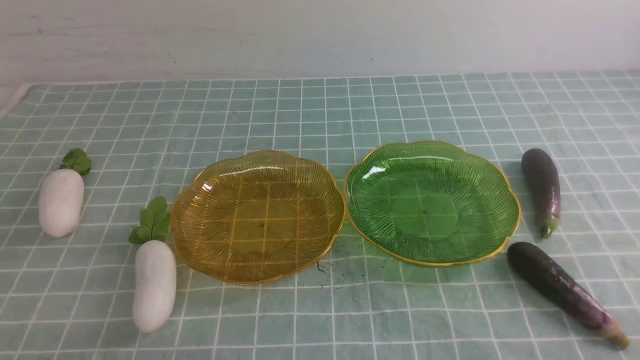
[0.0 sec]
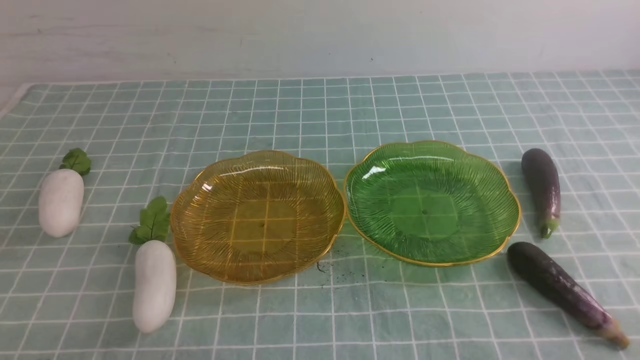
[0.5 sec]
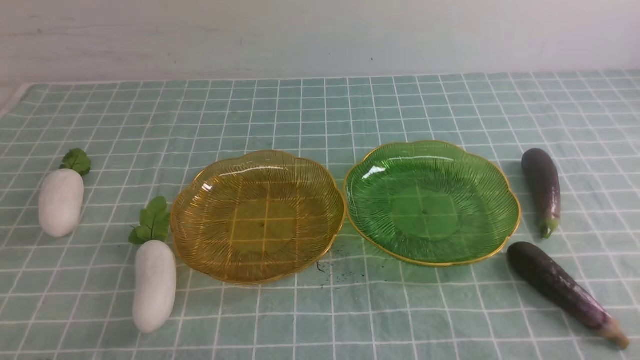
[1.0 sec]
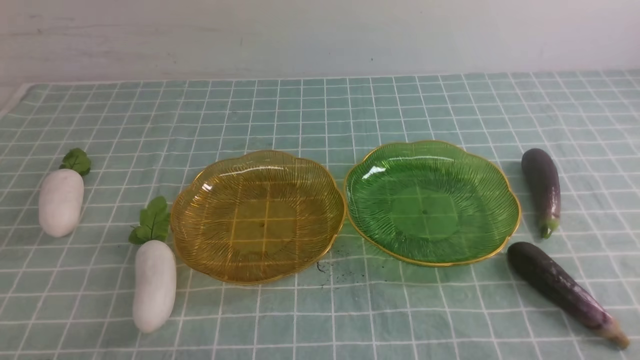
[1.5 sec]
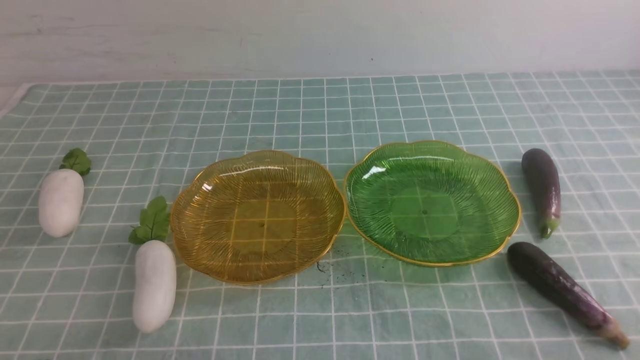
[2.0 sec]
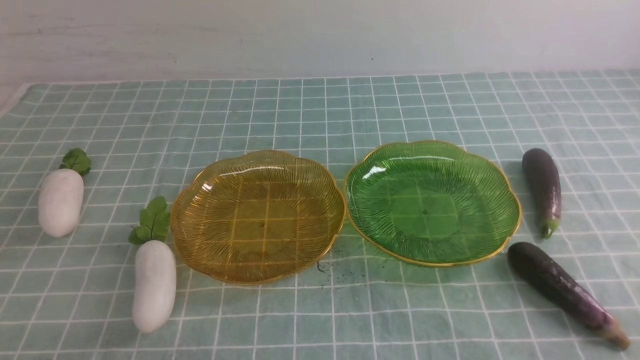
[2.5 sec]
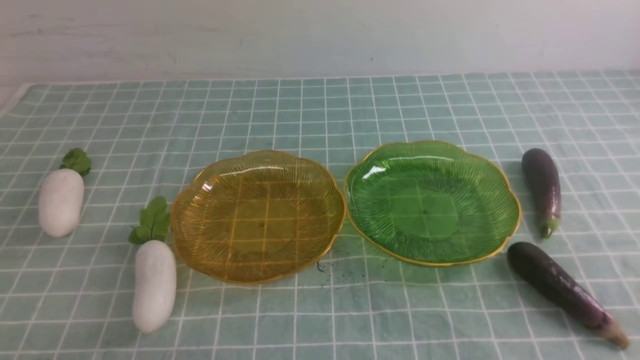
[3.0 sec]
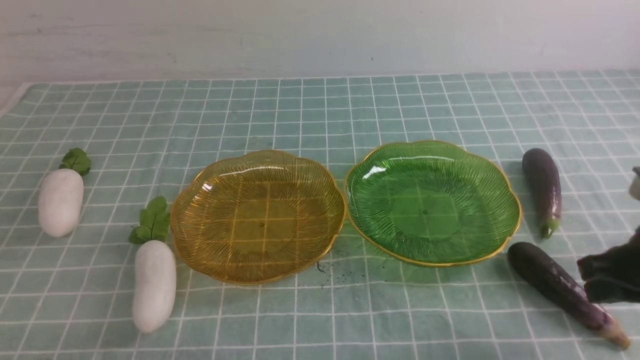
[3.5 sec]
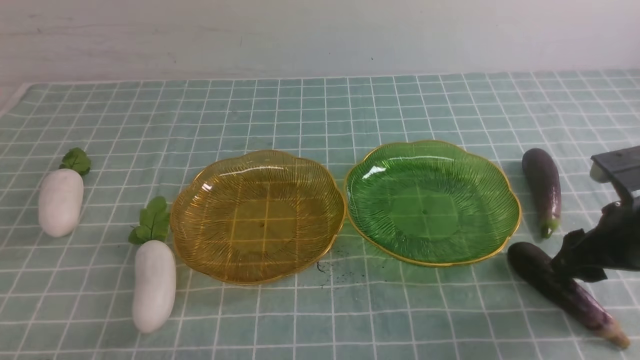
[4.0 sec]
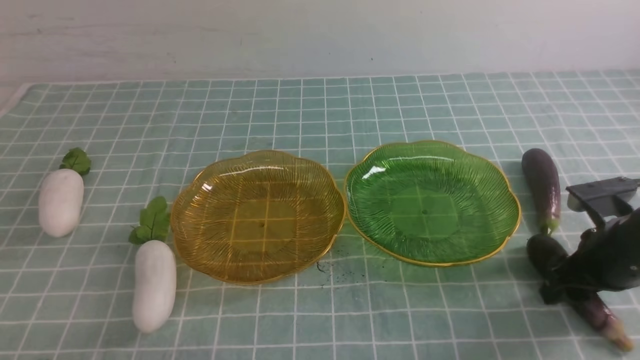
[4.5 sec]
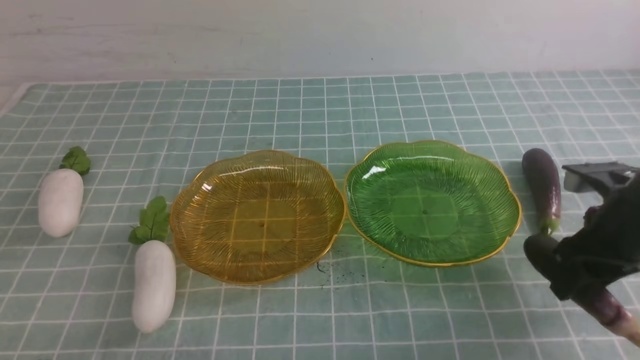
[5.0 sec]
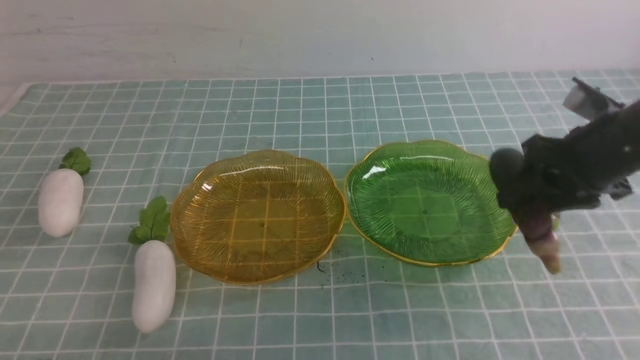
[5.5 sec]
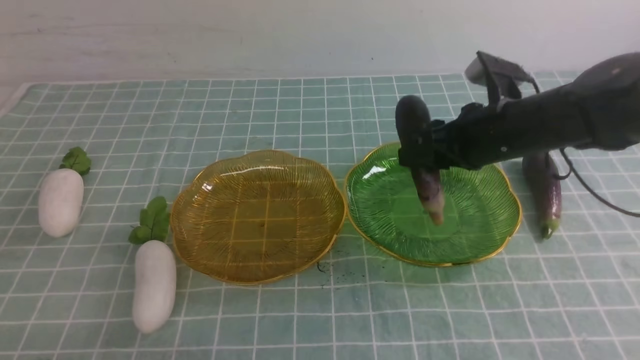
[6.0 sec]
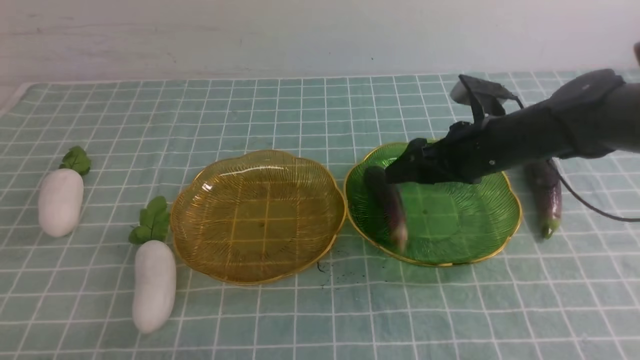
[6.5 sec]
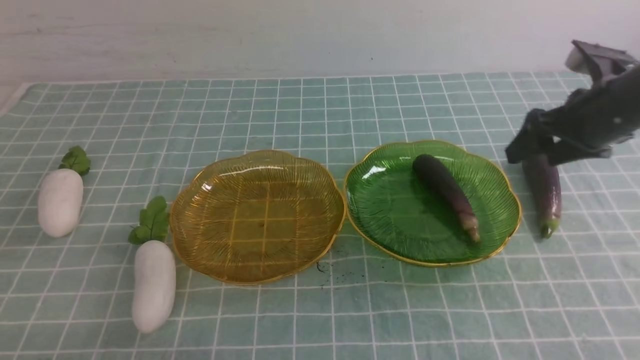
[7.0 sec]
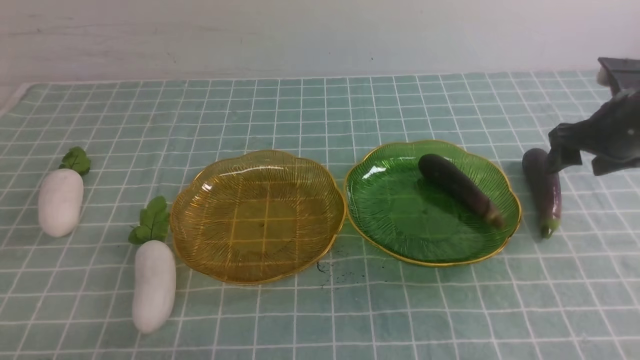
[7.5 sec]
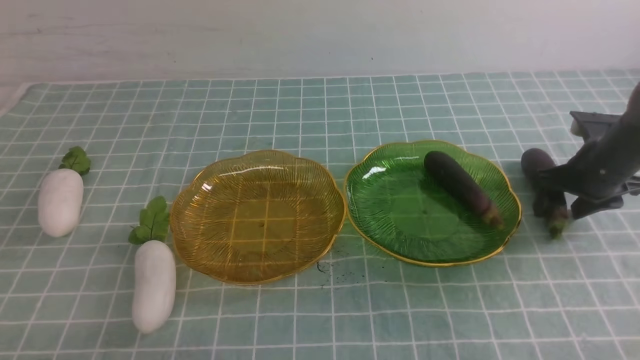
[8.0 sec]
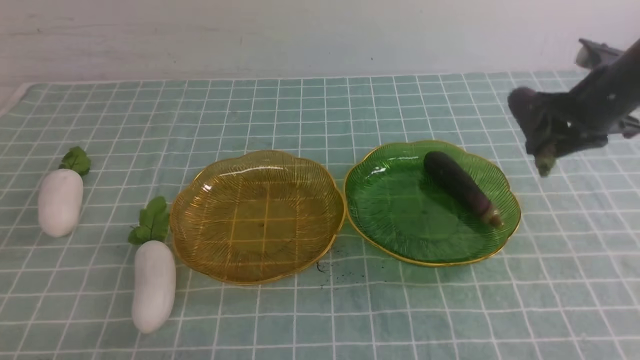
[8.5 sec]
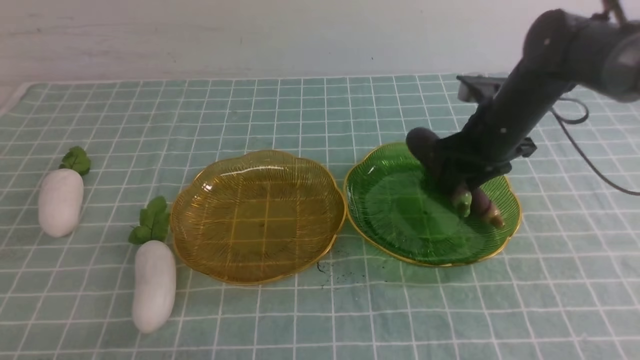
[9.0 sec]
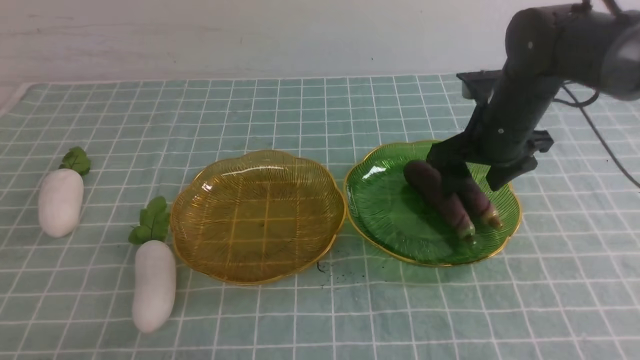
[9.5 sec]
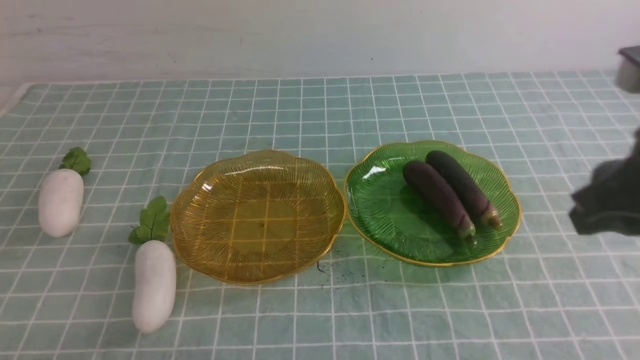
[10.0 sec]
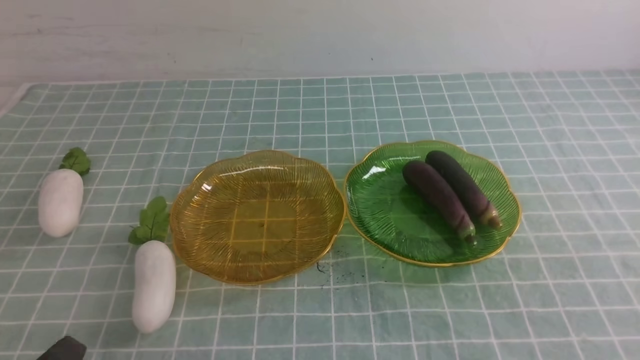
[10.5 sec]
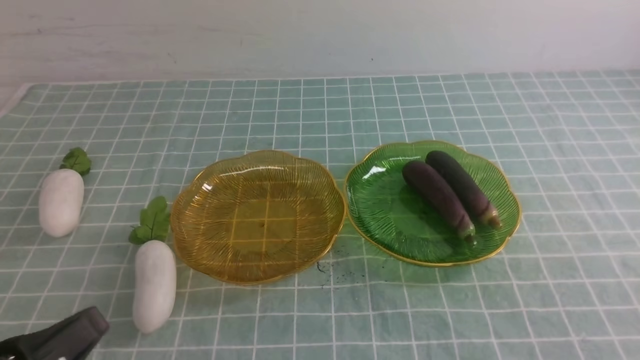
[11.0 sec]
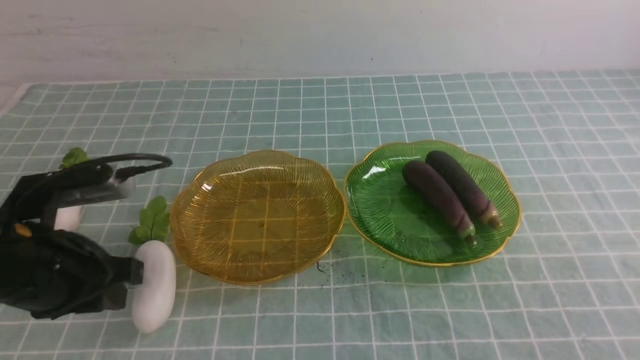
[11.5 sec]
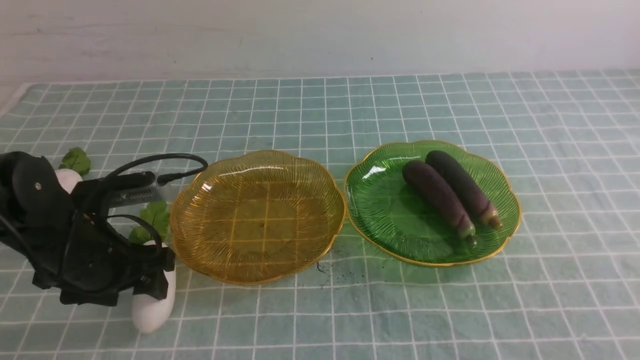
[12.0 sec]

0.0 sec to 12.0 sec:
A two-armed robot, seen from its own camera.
Step, 0.0 sec to 9.0 sec: use the right arm to grab an eggplant and put it into the right plate.
2.0 sec to 4.0 sec: The right gripper travels forward by approximately 25 cm, and opens.
4.0 sec to 6.0 sec: The right gripper heads to the left and forward, covering roughly 15 cm.
6.0 sec to 8.0 sec: The right gripper shifts some 15 cm to the right and downward.
8.0 sec to 10.0 sec: The right gripper heads backward, upward and to the left, covering some 30 cm, and closes up.
10.0 sec to 12.0 sec: The left gripper is displaced forward by about 20 cm, and opens up. The right gripper shifts about 15 cm backward and downward, and closes its fingers.

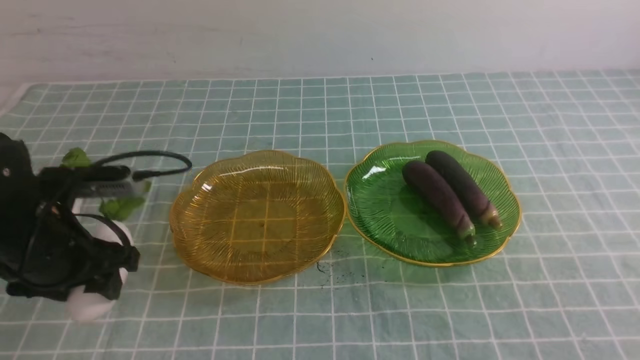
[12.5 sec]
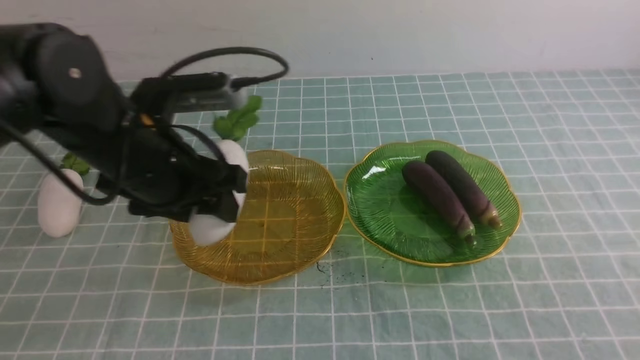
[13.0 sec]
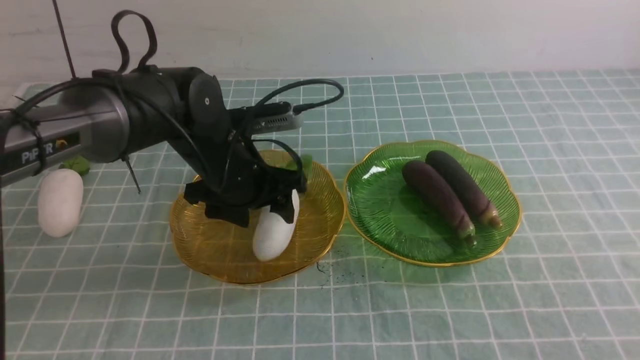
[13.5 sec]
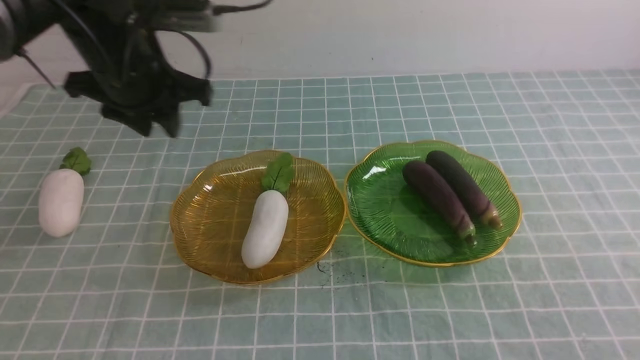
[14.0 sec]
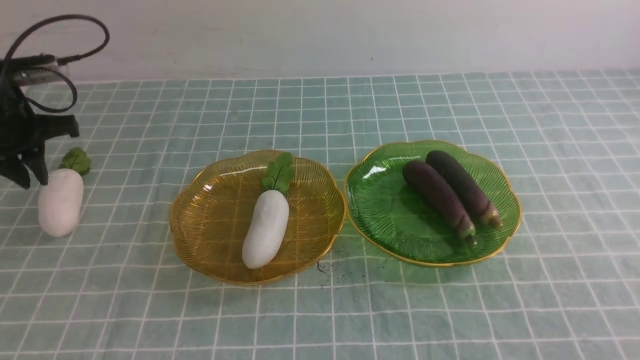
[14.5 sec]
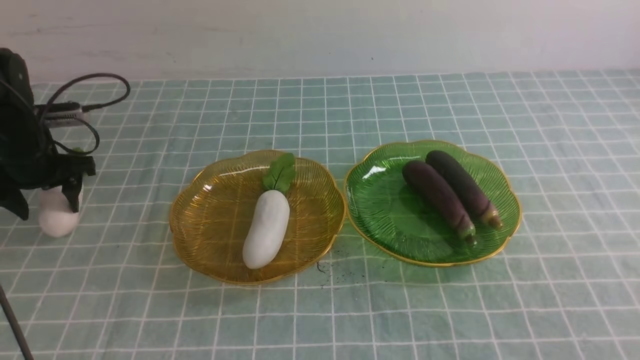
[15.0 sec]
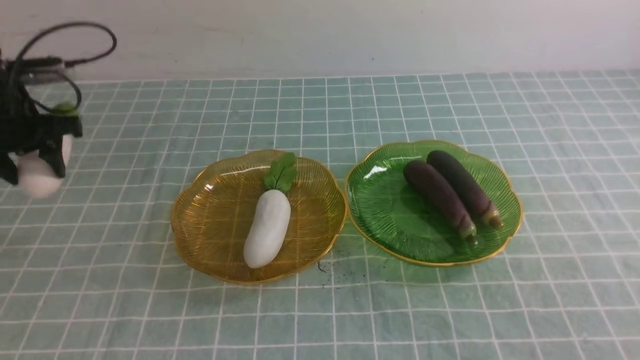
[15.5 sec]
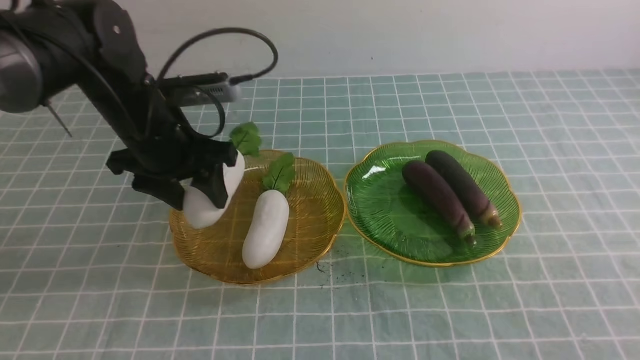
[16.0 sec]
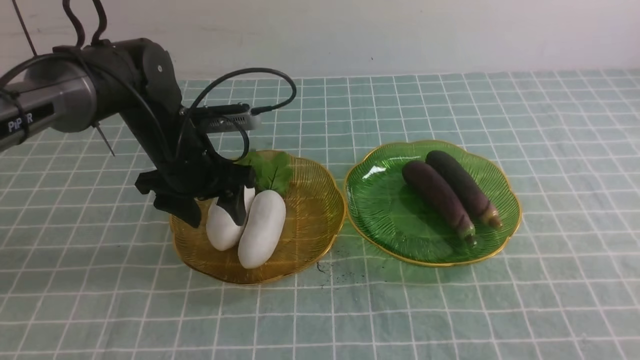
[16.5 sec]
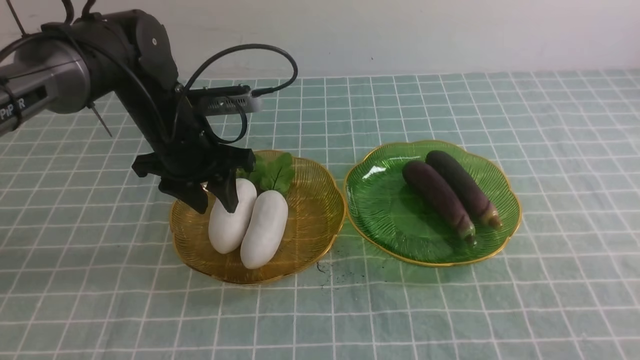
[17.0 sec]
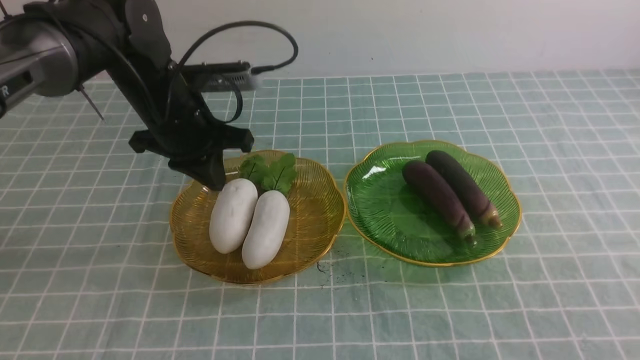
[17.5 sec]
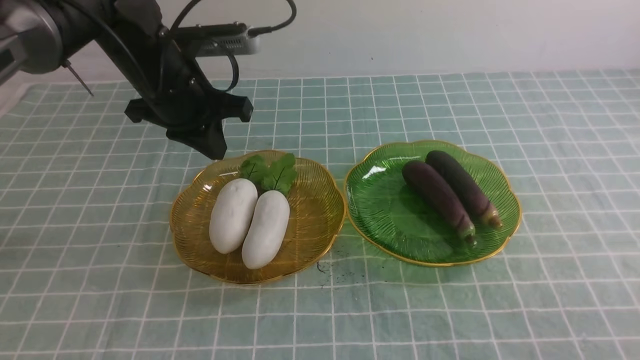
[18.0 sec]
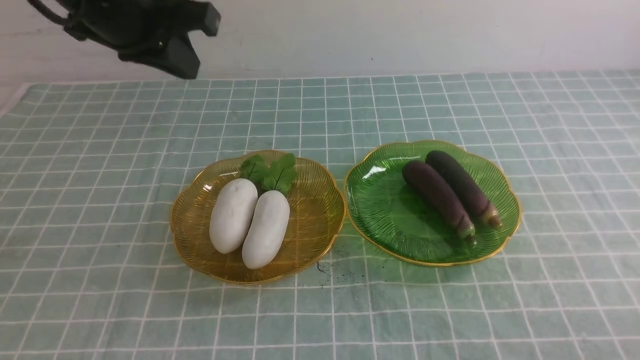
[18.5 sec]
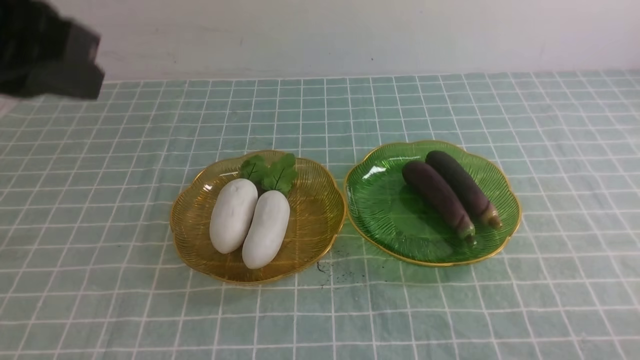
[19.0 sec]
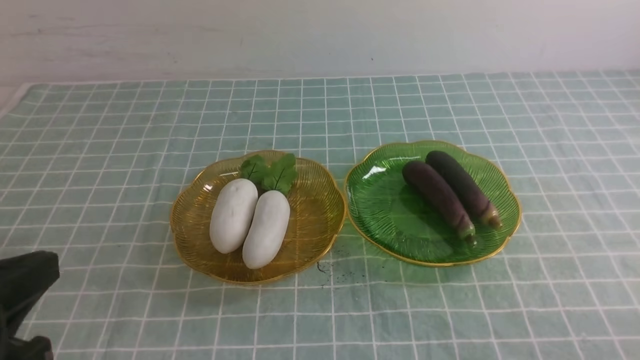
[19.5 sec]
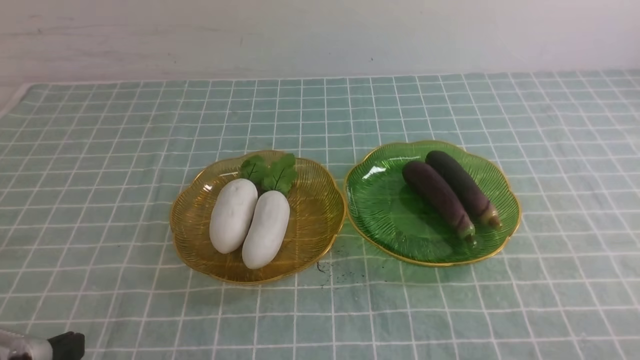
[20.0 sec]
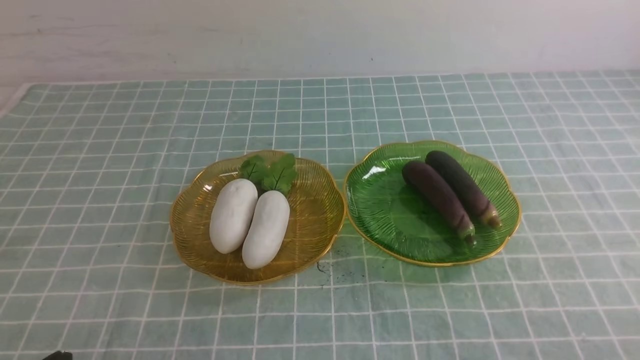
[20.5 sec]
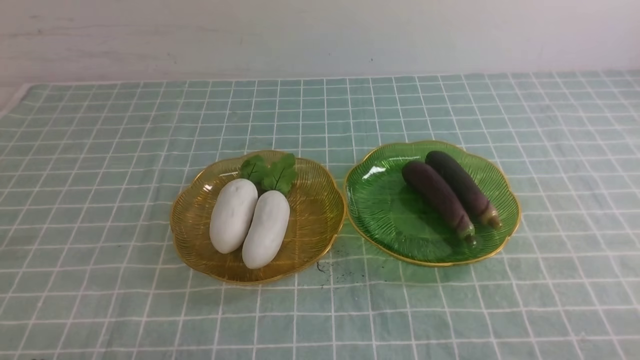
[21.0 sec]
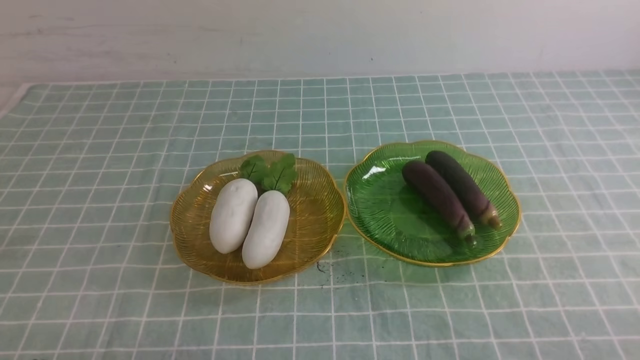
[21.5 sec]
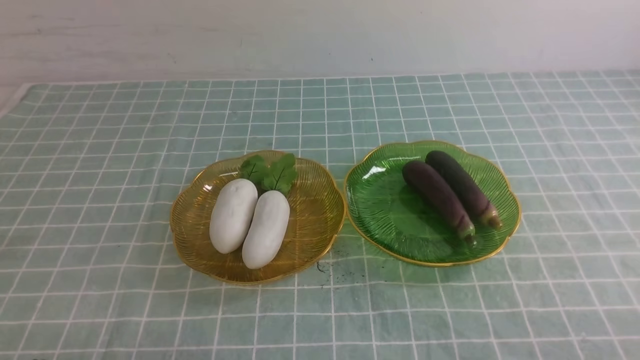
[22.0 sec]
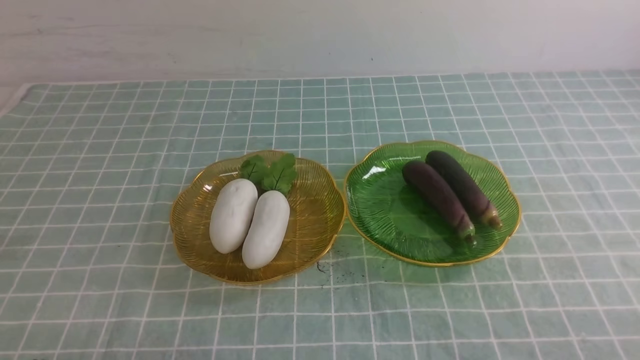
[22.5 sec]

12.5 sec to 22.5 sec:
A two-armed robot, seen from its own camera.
Step, 12.5 sec to 16.0 sec: use the left arm to grab a radish and put it into the left plate.
12.5 sec to 14.5 sec: The left gripper shifts roughly 20 cm forward and to the left, and closes.
14.5 sec to 16.5 sec: The left gripper goes about 20 cm to the right, and opens.
16.5 sec to 18.5 sec: The left gripper goes some 20 cm upward, and closes, while the right gripper shifts approximately 10 cm downward.
18.5 sec to 20.5 sec: The left gripper heads backward and downward, covering about 35 cm.
